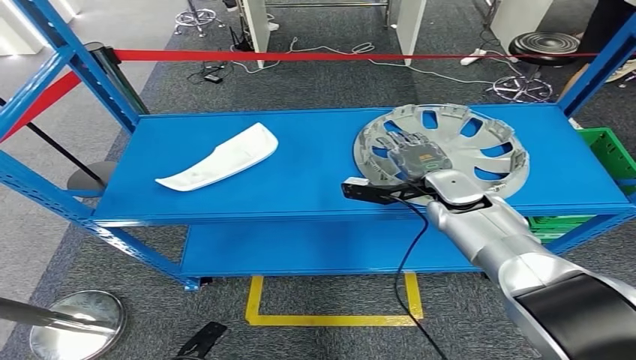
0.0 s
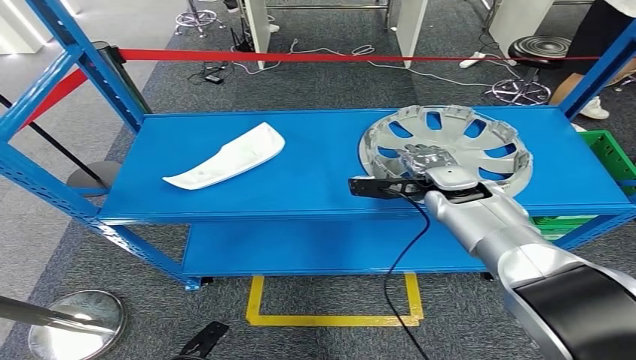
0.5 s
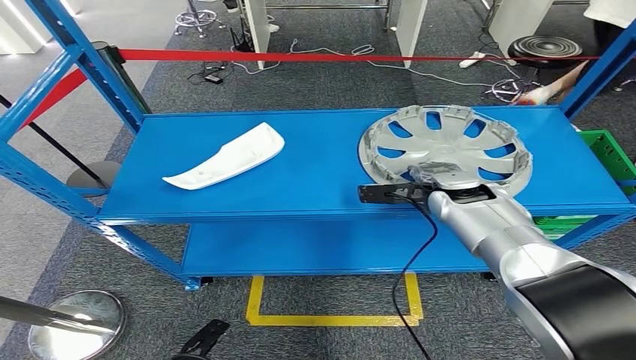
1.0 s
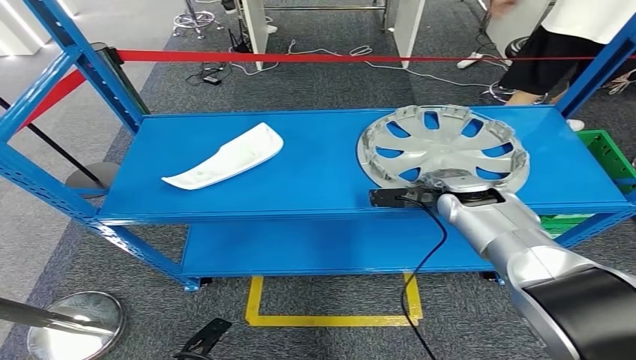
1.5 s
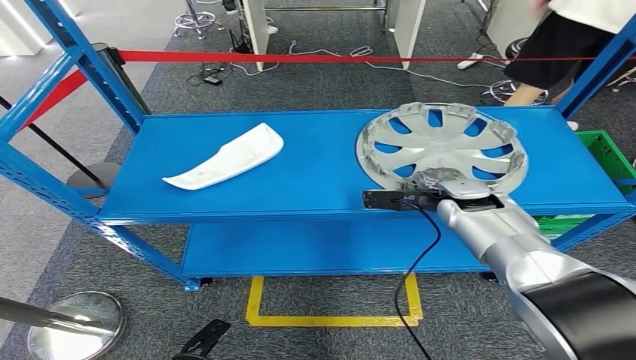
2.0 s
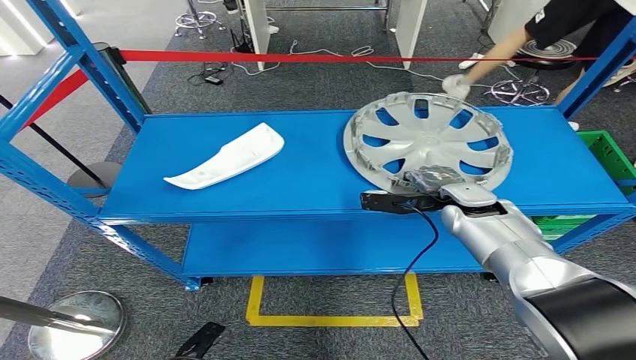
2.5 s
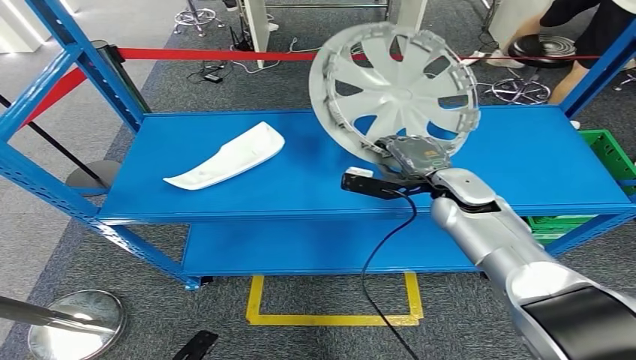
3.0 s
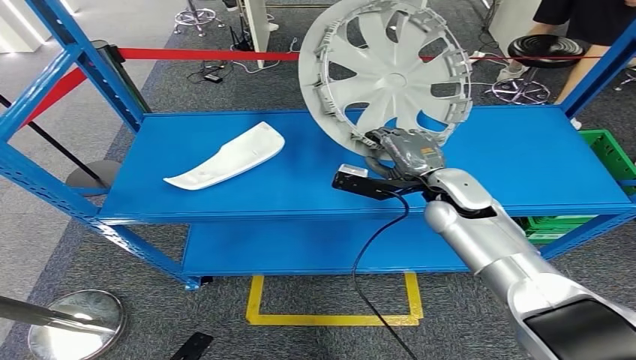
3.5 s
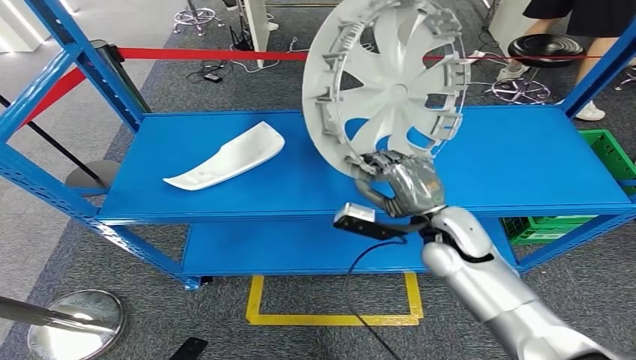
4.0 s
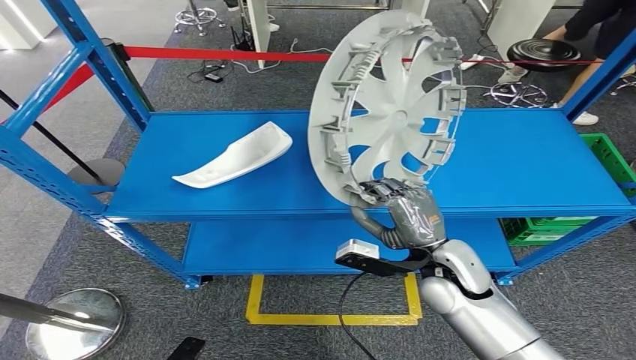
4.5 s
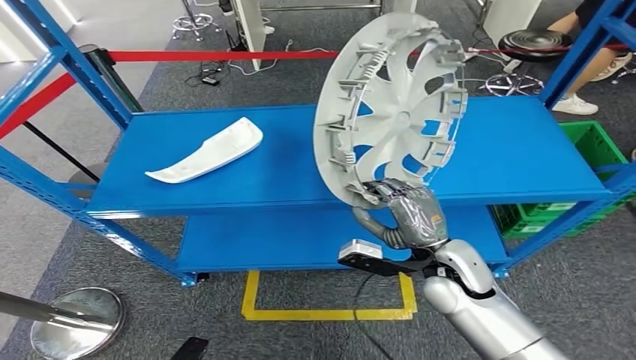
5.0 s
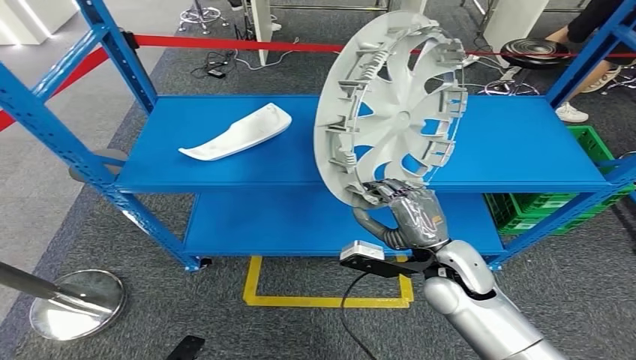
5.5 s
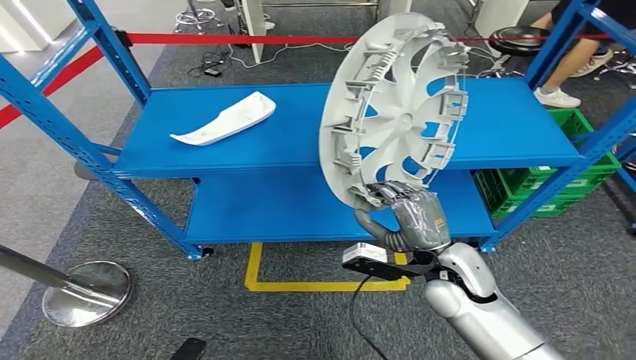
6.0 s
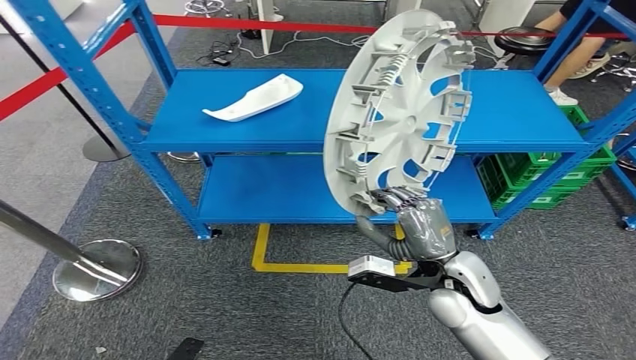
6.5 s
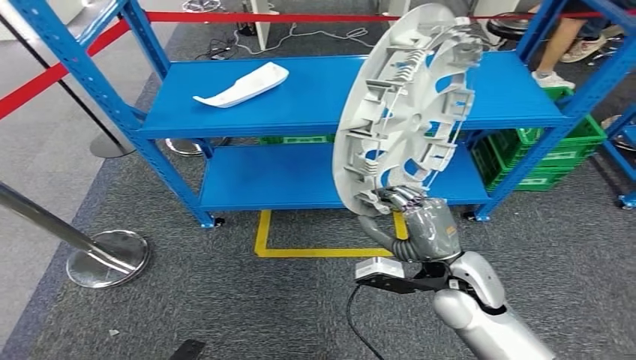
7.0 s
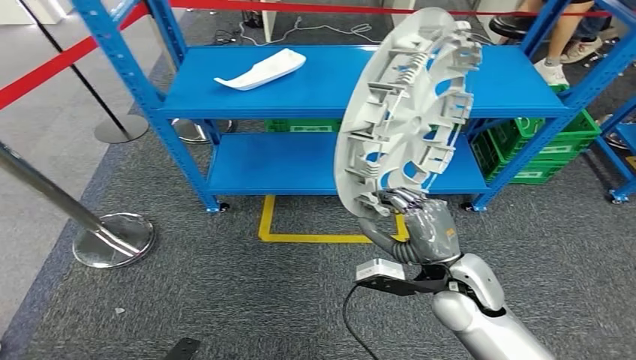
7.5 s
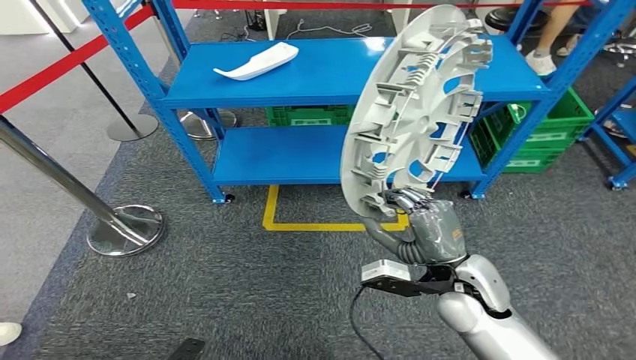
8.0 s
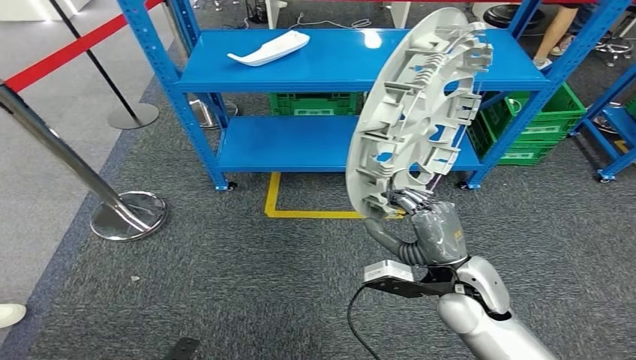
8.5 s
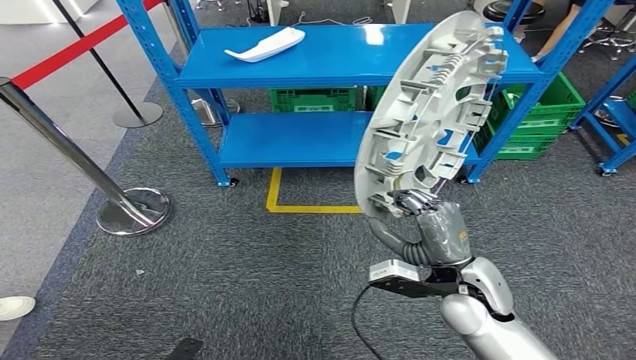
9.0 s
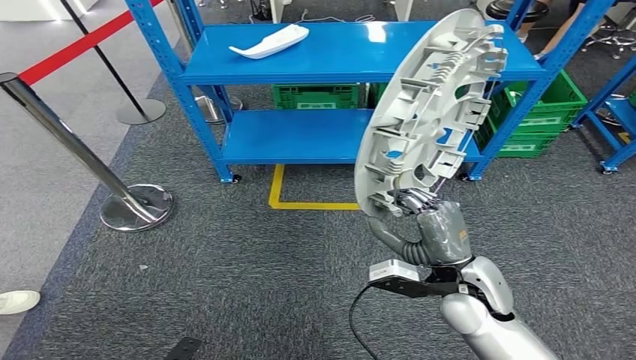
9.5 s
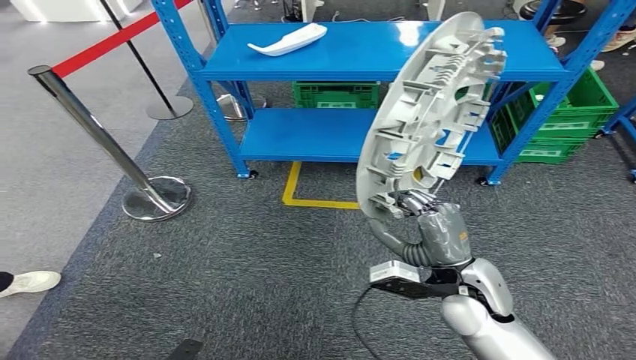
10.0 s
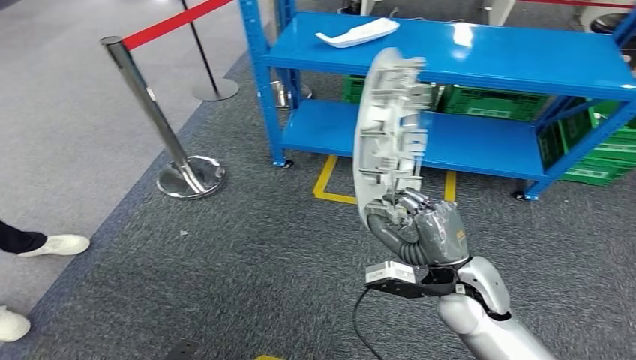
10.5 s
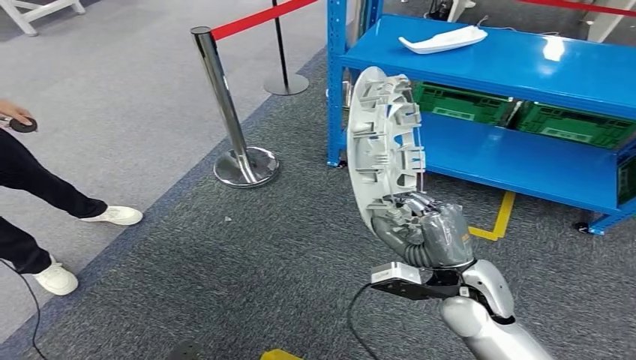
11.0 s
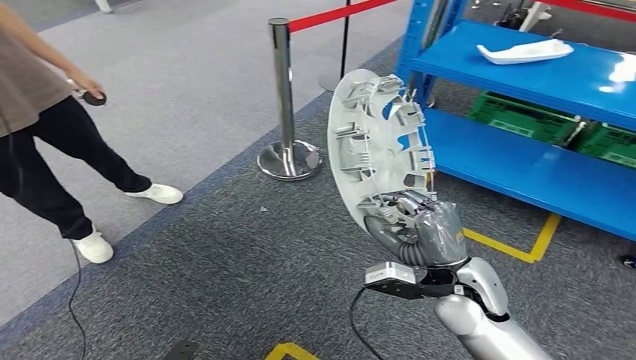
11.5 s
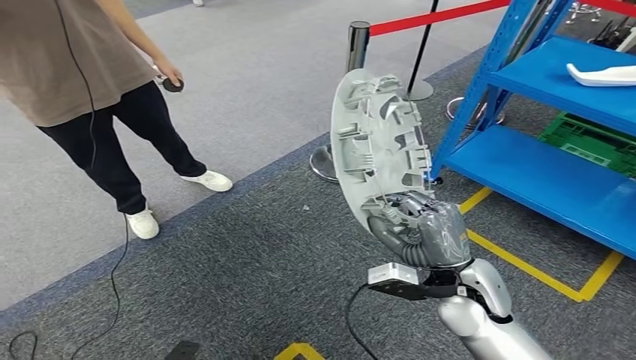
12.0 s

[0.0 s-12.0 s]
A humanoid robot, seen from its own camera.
Step, 0.0 to 3.5 s: Pick up the small component from the shelf.

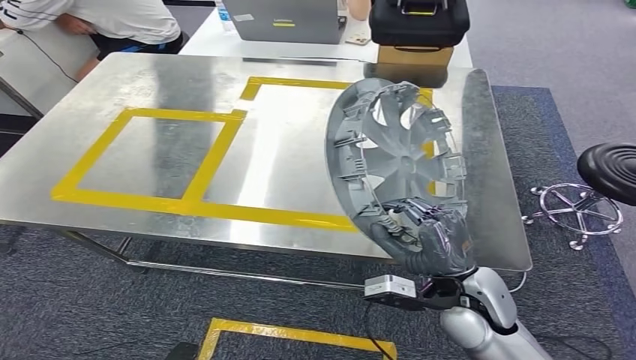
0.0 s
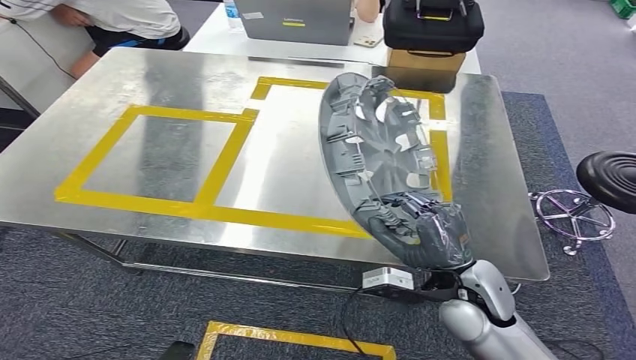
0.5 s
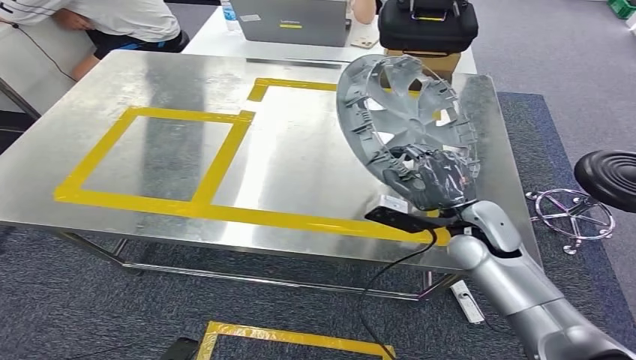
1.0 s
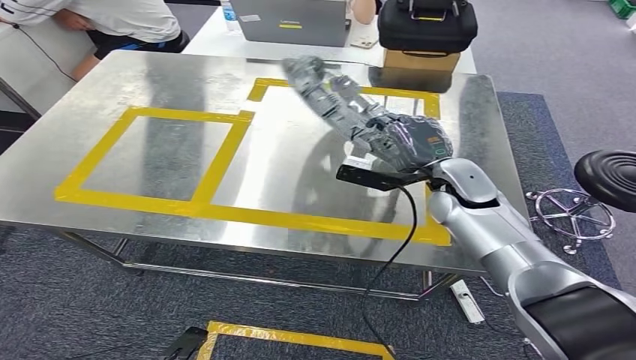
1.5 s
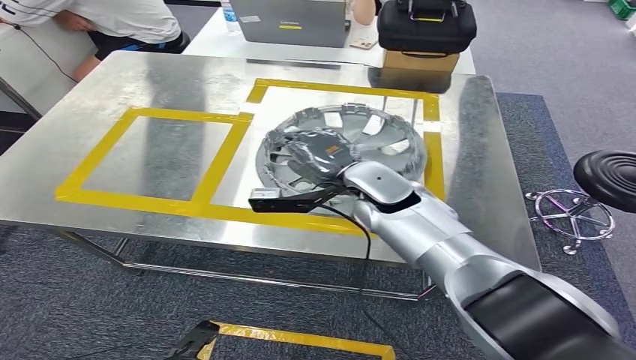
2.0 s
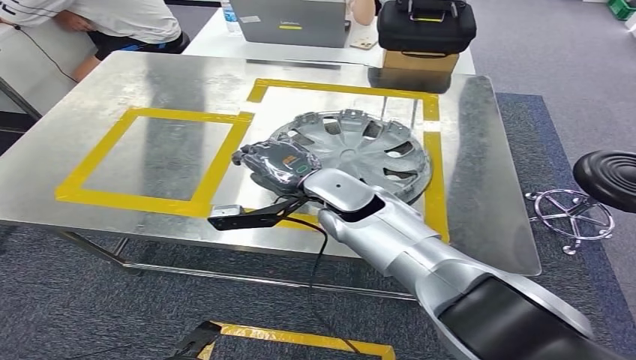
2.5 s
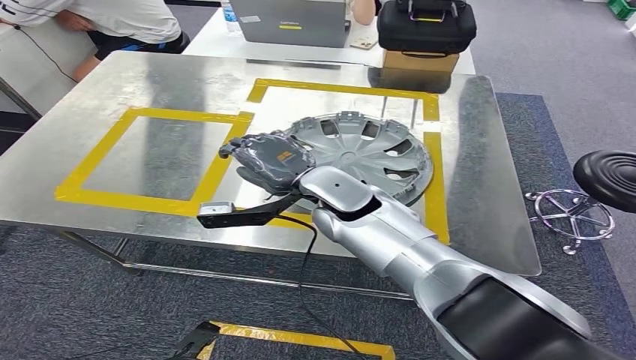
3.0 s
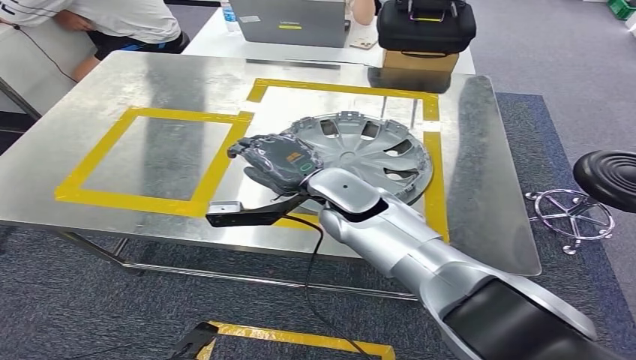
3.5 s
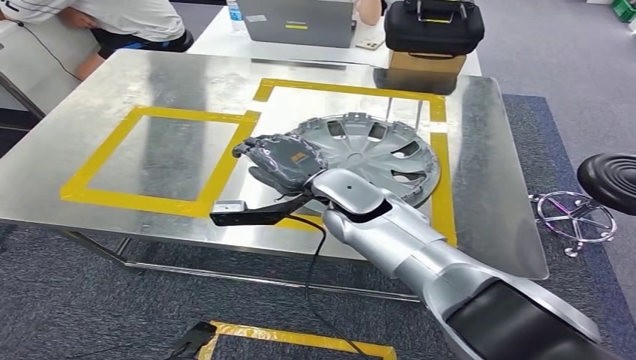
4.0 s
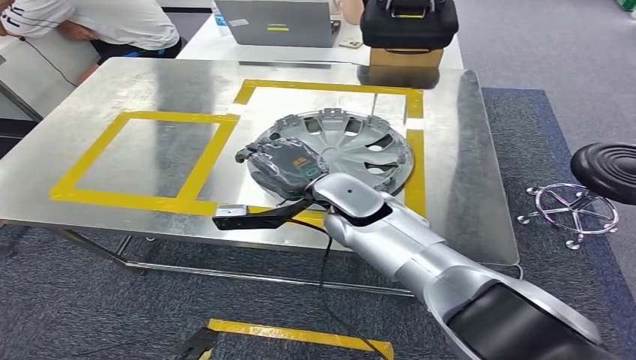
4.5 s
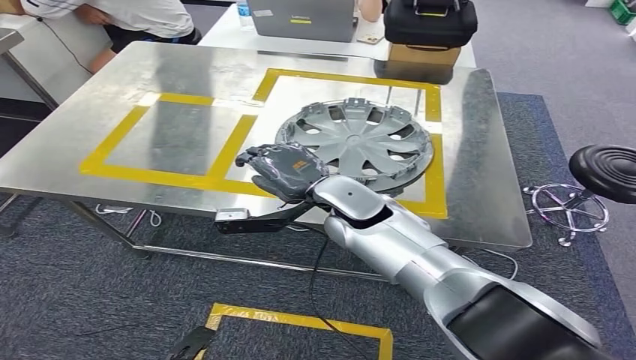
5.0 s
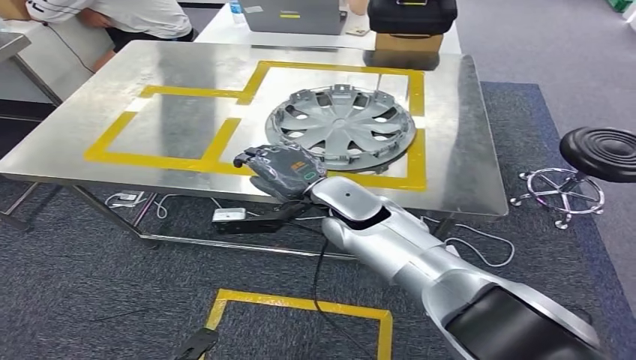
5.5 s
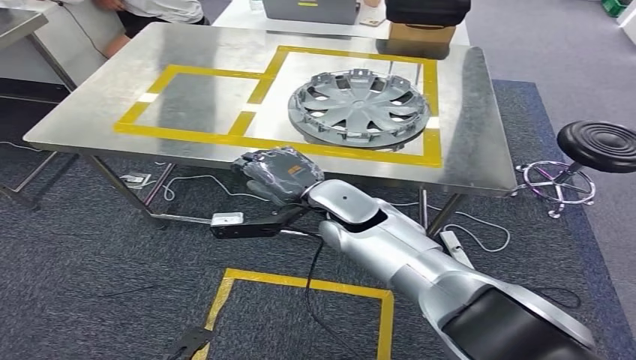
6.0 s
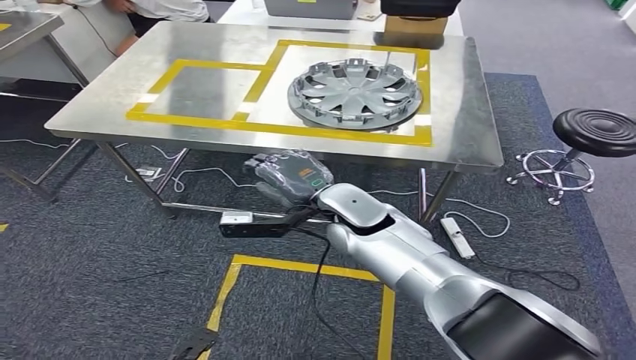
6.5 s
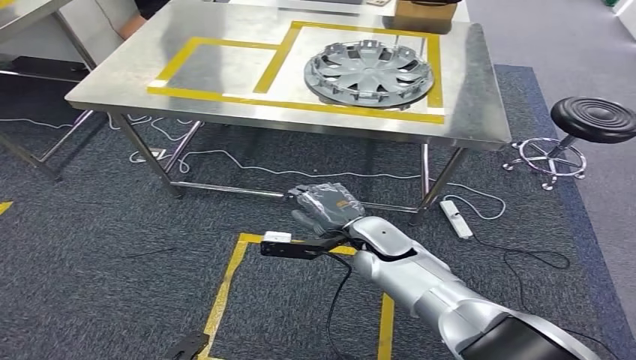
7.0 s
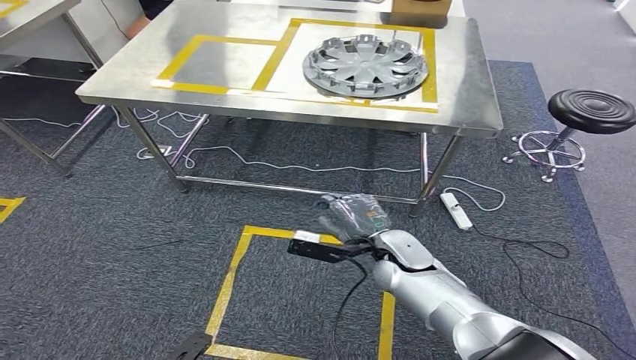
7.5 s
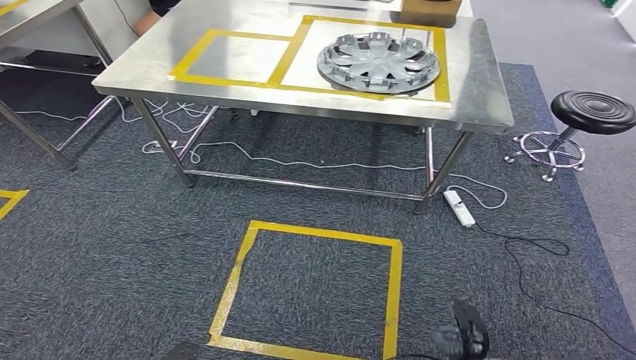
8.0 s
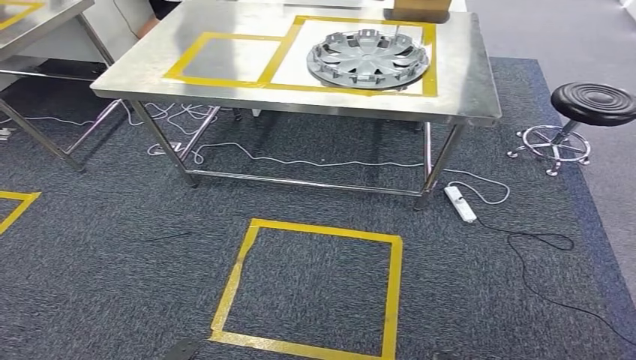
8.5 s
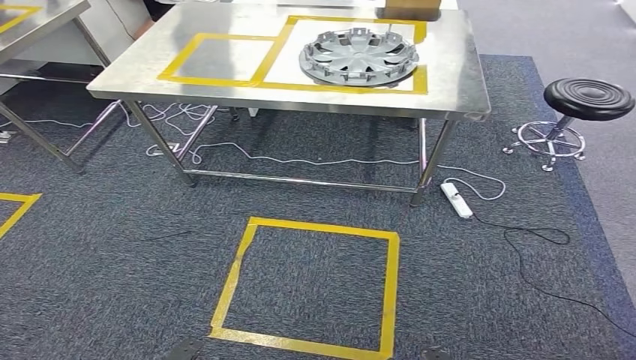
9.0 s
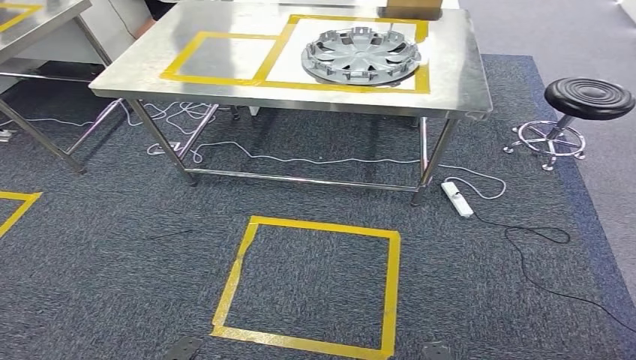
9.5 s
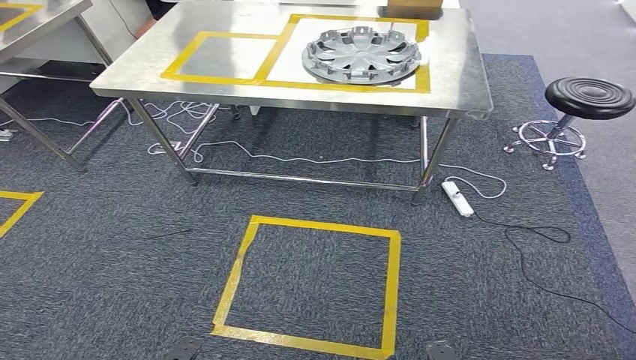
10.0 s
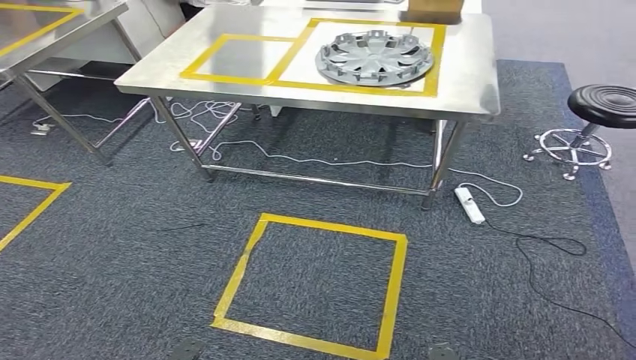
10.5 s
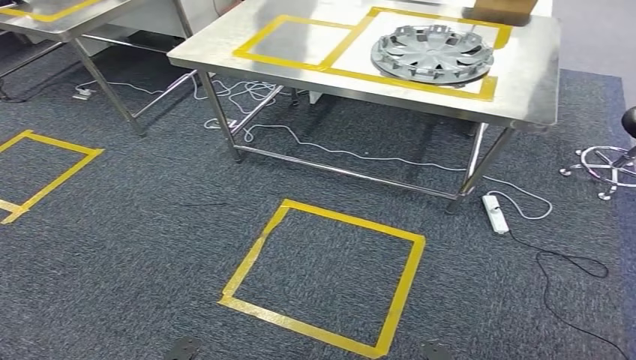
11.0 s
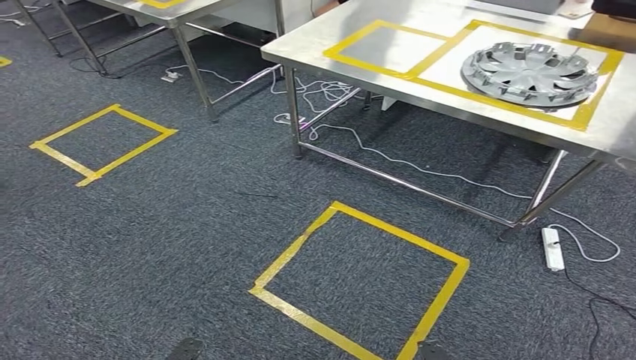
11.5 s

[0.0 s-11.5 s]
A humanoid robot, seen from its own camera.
Step, 1.0 to 3.0 s: Insert the small component into the corresponding slot on the workbench.
